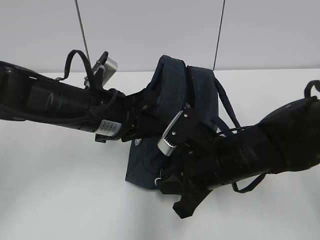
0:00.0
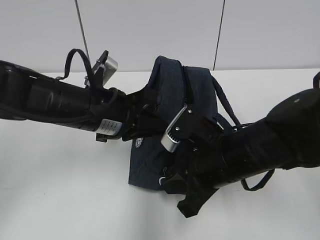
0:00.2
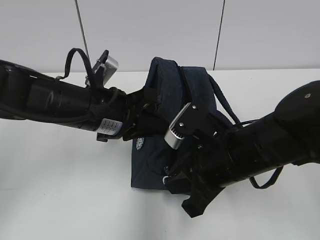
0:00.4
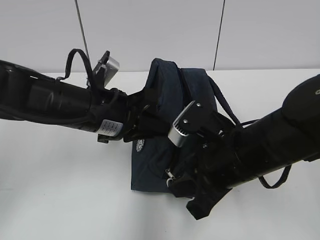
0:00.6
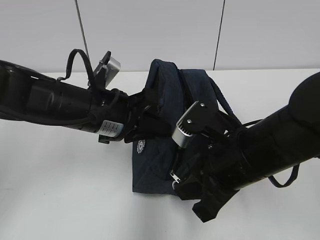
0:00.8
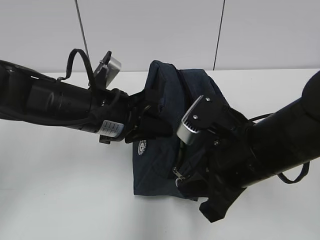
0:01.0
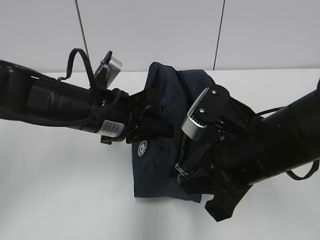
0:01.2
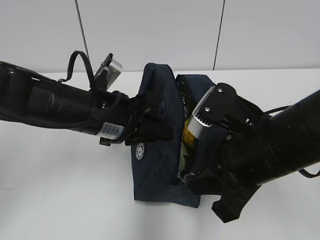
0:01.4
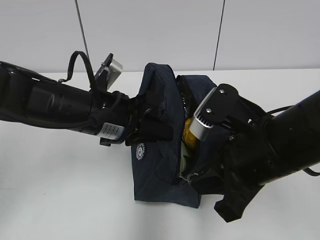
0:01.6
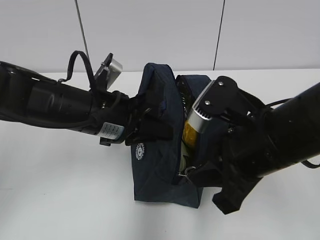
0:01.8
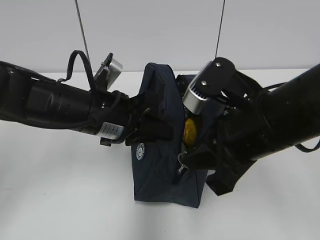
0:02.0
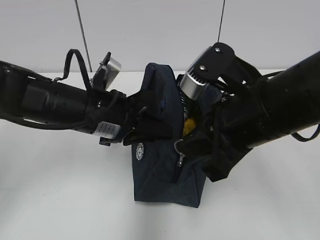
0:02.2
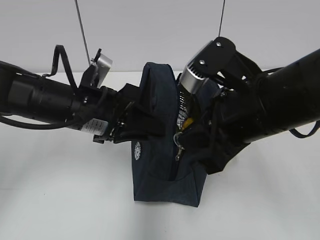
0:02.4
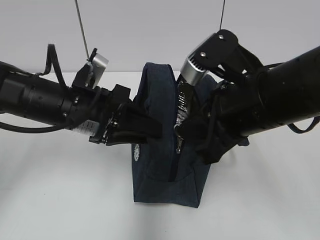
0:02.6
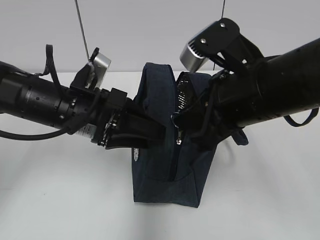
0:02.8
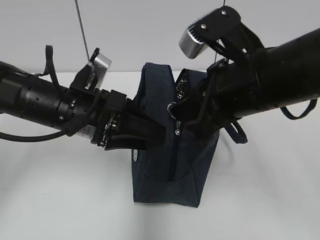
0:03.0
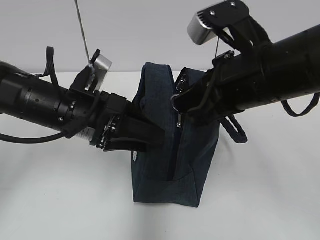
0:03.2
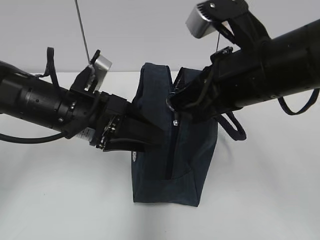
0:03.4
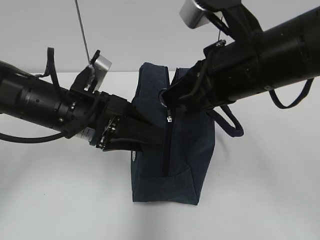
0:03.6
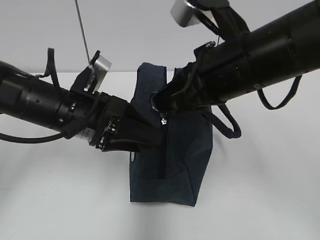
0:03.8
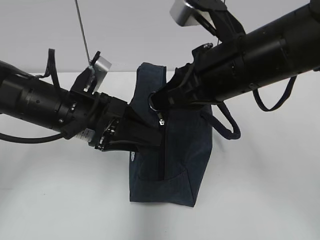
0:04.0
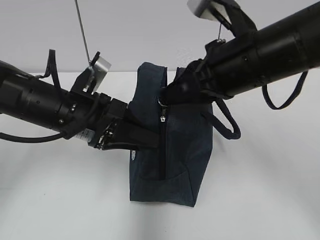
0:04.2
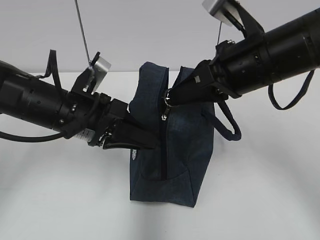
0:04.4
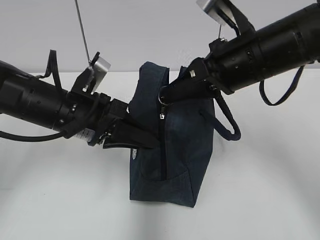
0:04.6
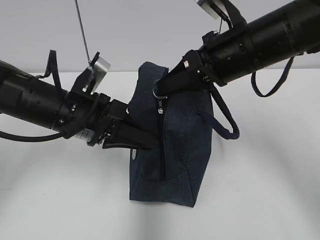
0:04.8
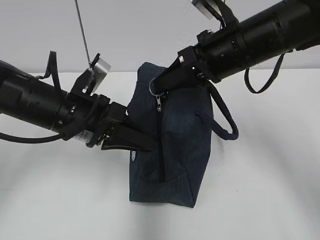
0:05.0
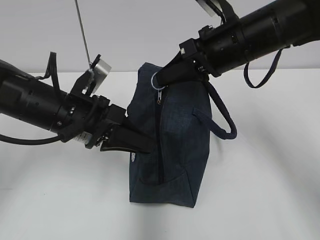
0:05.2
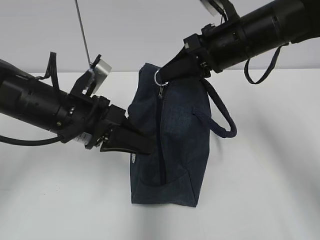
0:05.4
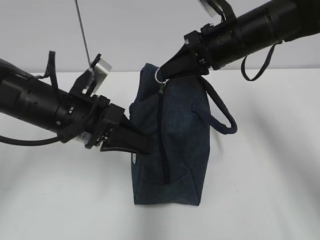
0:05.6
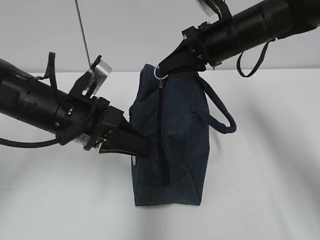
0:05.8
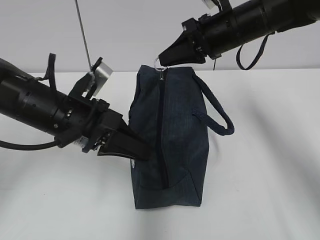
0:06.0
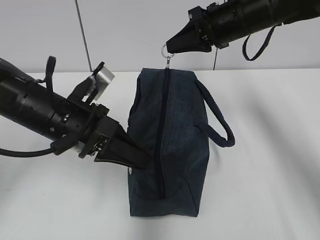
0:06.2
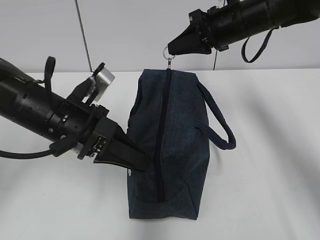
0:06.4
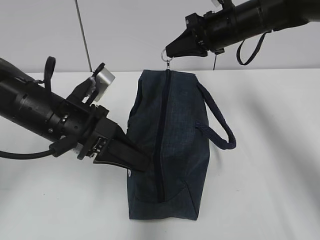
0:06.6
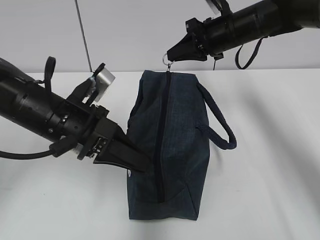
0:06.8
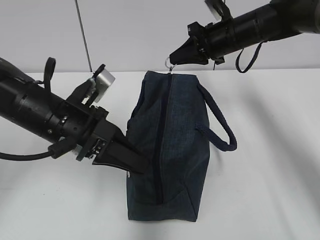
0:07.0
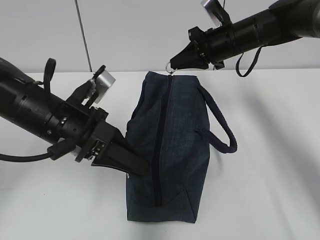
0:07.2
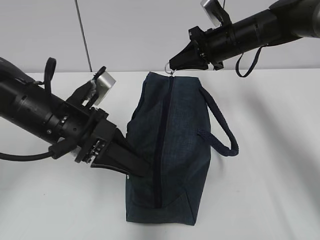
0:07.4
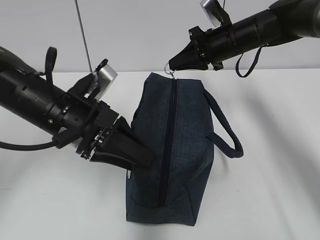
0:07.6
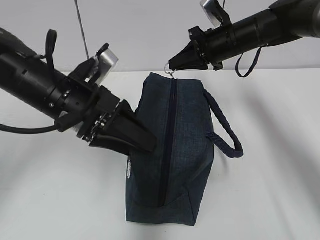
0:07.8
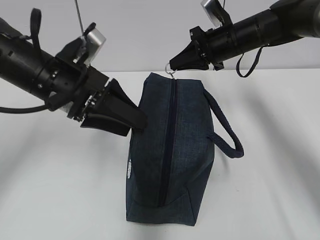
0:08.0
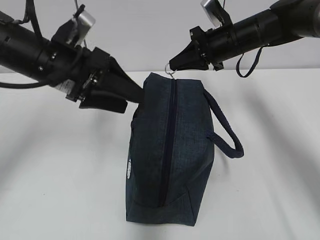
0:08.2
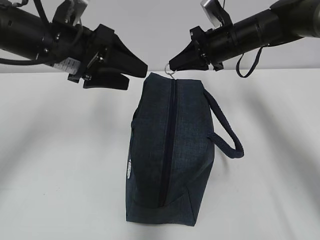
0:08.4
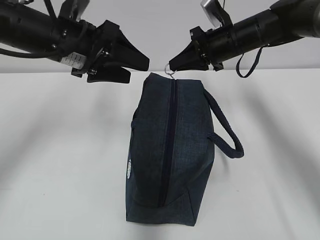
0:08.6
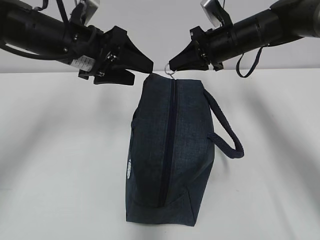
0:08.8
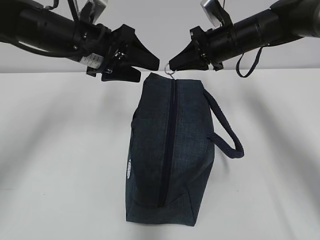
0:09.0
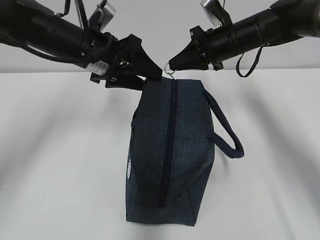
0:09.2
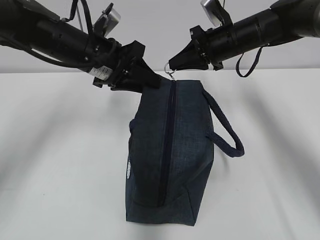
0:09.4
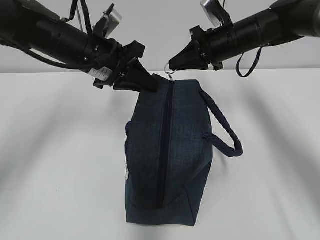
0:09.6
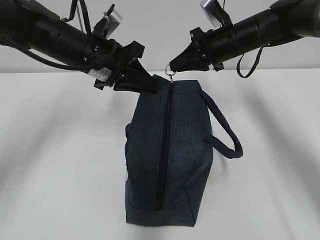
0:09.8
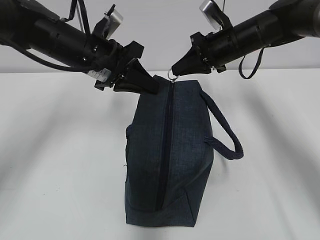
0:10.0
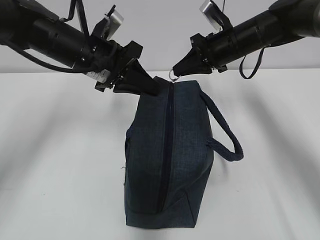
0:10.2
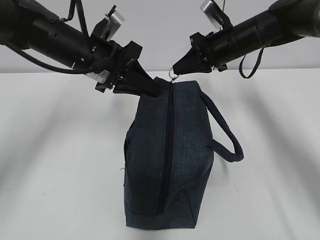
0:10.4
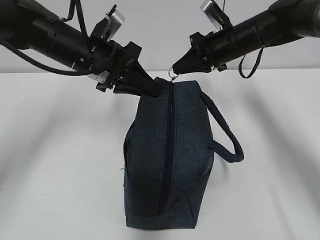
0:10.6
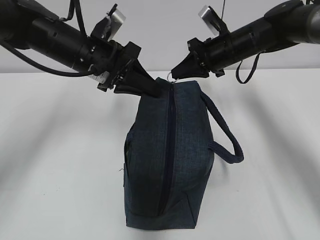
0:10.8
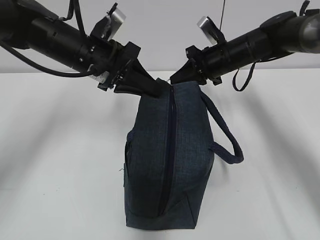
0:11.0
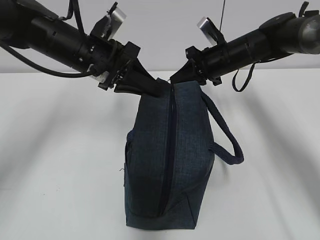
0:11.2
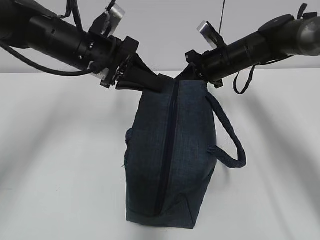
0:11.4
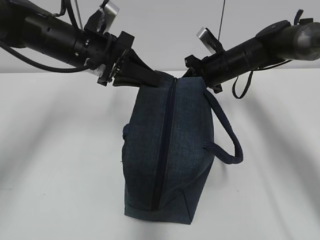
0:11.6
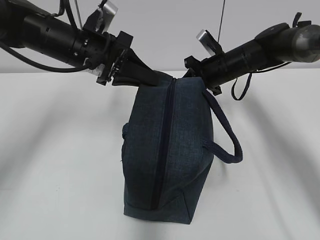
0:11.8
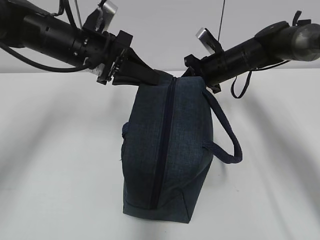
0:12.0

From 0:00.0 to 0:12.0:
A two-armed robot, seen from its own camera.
From 0:00.0 to 0:01.6: The right gripper moves upward, roughly 10 cm.
From 0:01.6 to 0:03.0: The left gripper opens, while the right gripper is displaced upward by about 5 cm.
From 0:03.0 to 0:04.4: The left gripper closes up.
From 0:04.4 to 0:06.0: The right gripper is displaced forward by some 10 cm.
From 0:06.0 to 0:07.6: The right gripper shifts approximately 5 cm forward, while the left gripper opens its fingers.
From 0:07.6 to 0:09.0: The left gripper is displaced forward by approximately 10 cm.
From 0:09.0 to 0:10.4: The left gripper closes.
From 0:10.4 to 0:12.0: The right gripper travels downward by some 5 cm.

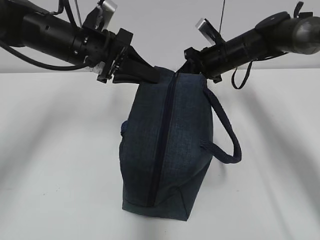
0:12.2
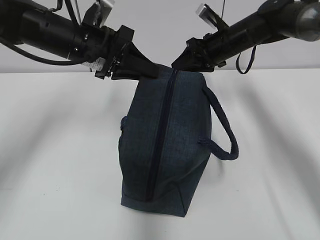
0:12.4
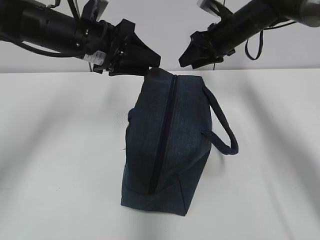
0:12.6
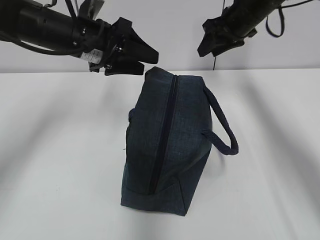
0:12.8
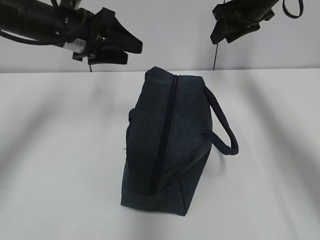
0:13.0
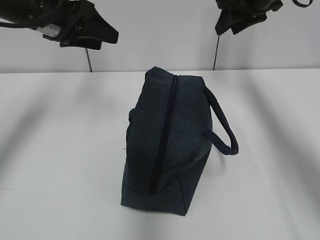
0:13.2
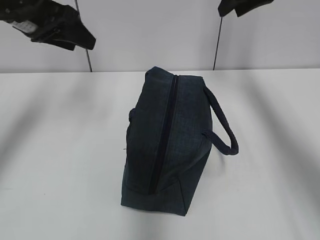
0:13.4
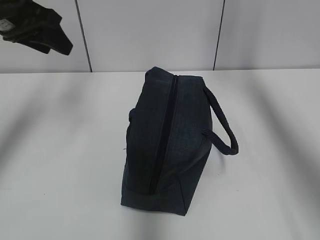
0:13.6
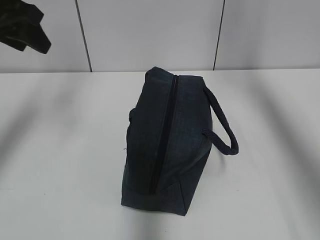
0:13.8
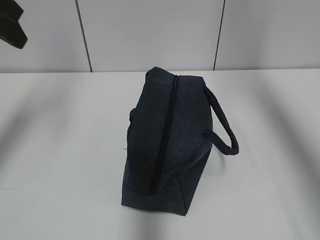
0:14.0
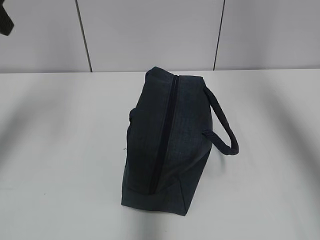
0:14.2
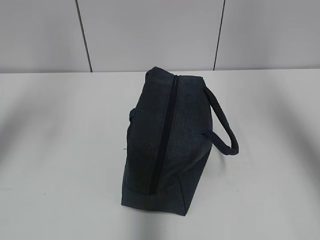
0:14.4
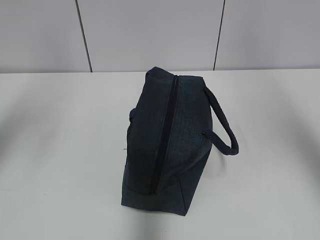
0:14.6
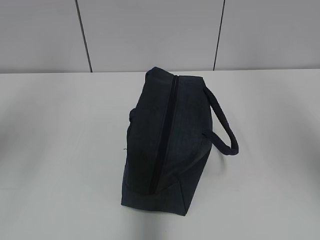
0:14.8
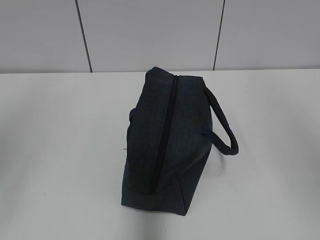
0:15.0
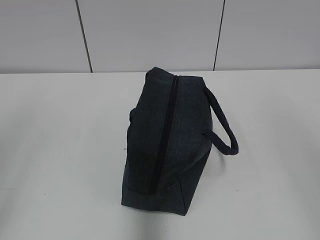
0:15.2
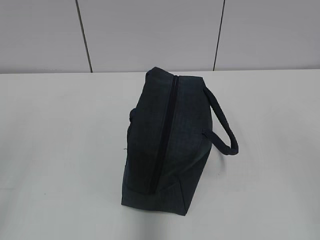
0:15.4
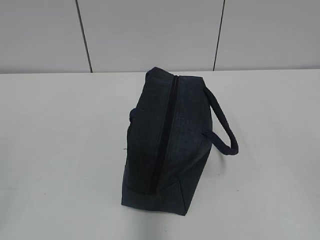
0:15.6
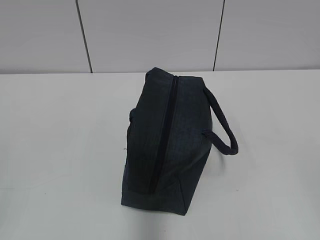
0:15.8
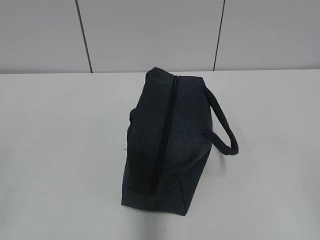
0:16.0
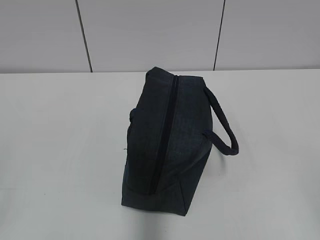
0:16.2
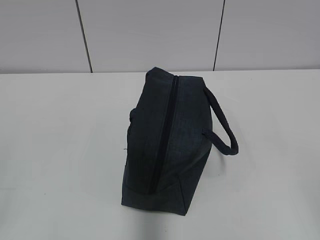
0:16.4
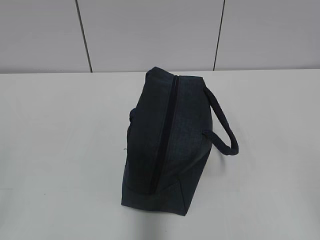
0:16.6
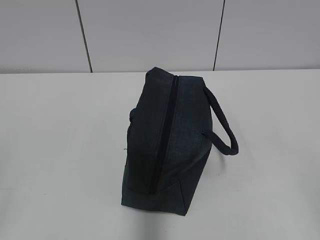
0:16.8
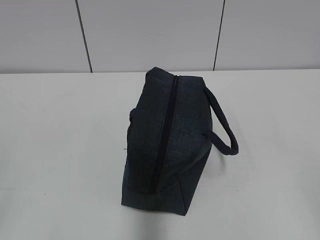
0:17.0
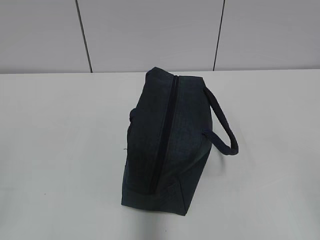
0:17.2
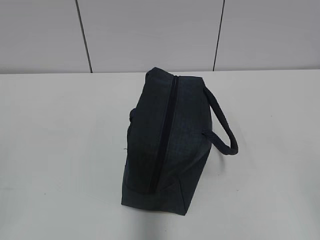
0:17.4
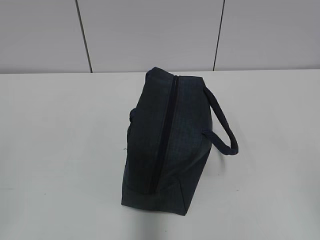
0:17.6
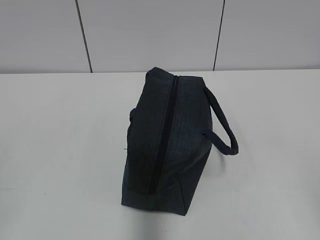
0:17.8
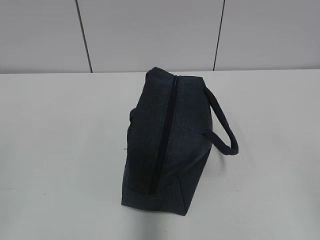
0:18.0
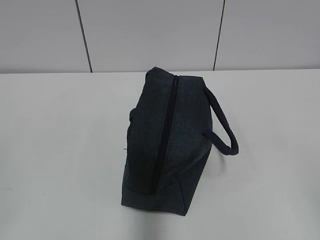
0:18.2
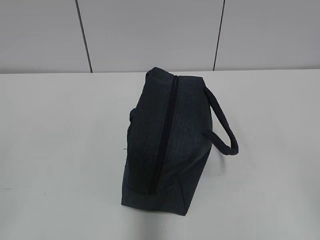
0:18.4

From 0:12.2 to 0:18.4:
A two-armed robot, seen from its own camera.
From 0:12.2 to 0:13.8: The right gripper is displaced upward by some 25 cm, and opens up. Meanwhile the left gripper travels to the left and upward by some 15 cm, and opens its fingers.
From 0:13.8 to 0:15.4: Both grippers move backward, about 35 cm.
